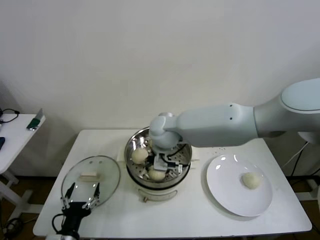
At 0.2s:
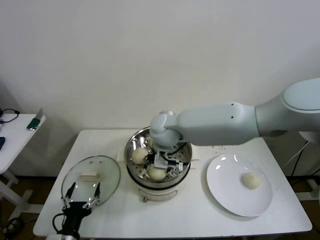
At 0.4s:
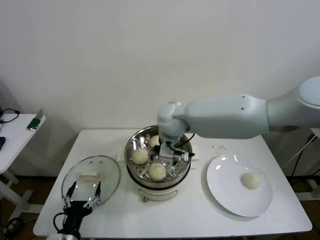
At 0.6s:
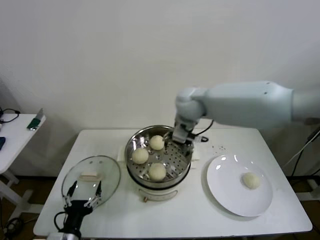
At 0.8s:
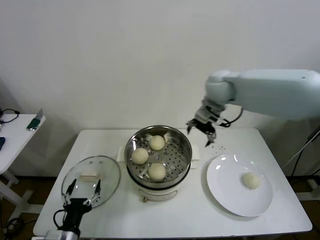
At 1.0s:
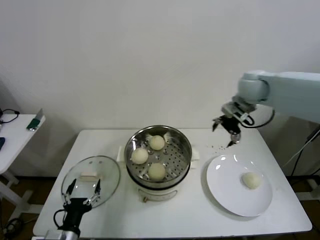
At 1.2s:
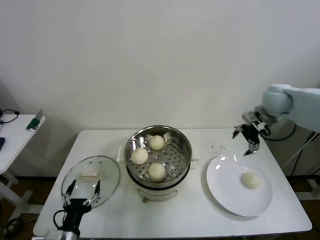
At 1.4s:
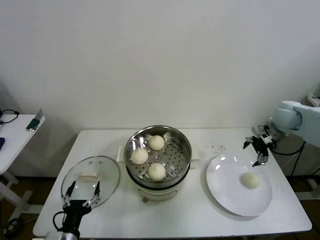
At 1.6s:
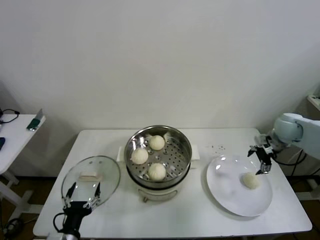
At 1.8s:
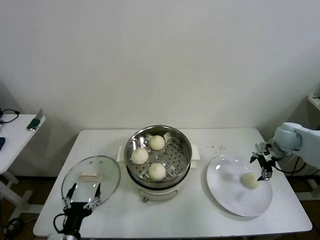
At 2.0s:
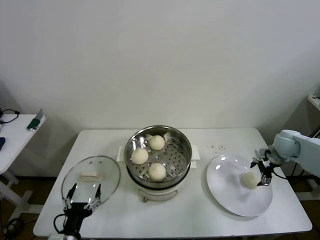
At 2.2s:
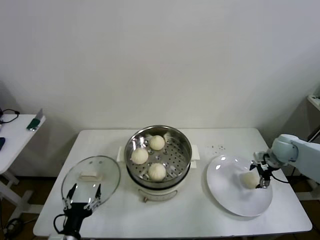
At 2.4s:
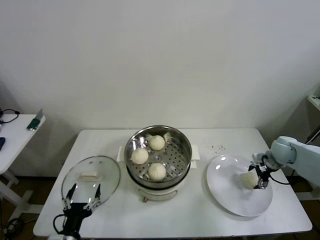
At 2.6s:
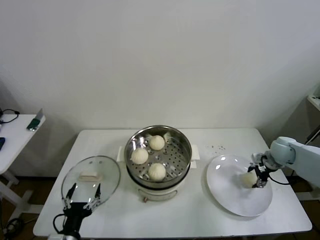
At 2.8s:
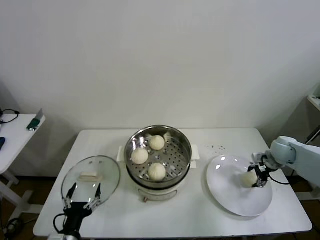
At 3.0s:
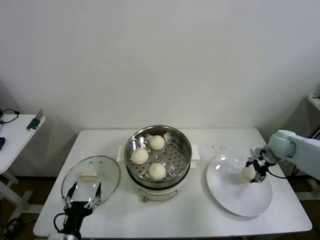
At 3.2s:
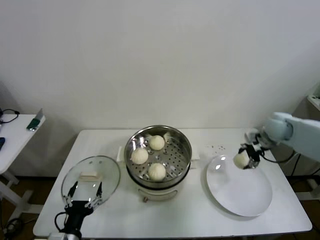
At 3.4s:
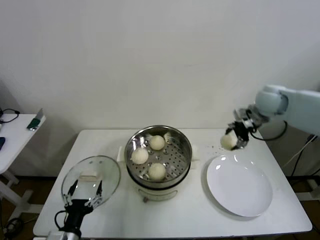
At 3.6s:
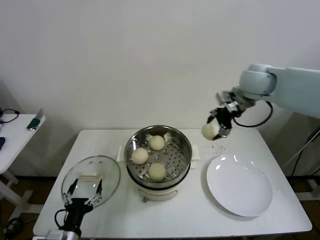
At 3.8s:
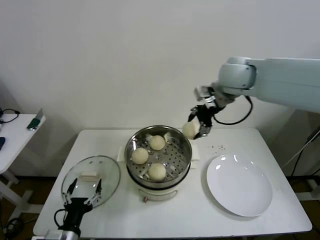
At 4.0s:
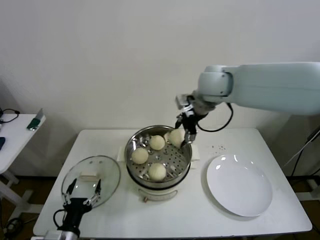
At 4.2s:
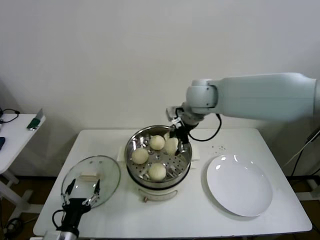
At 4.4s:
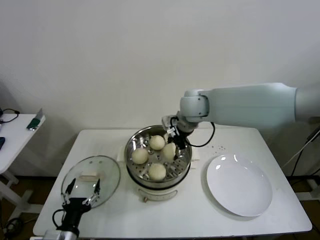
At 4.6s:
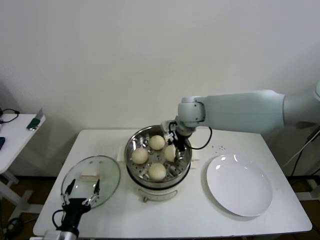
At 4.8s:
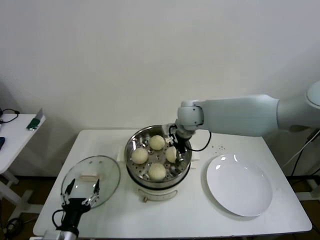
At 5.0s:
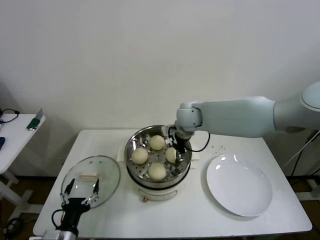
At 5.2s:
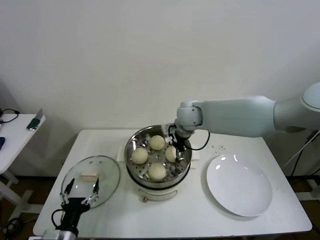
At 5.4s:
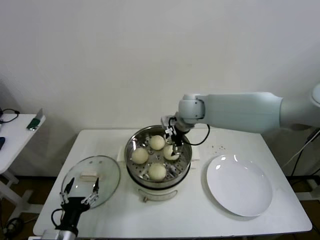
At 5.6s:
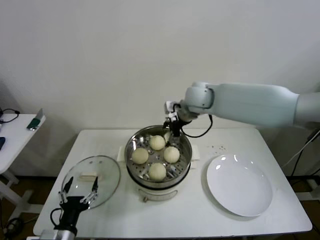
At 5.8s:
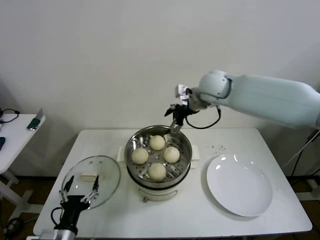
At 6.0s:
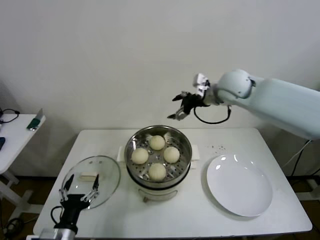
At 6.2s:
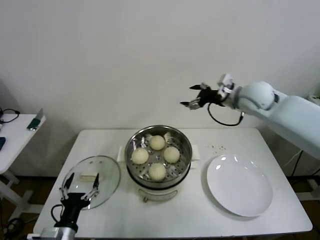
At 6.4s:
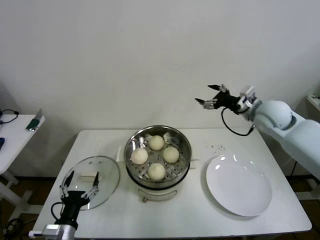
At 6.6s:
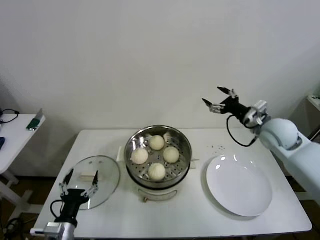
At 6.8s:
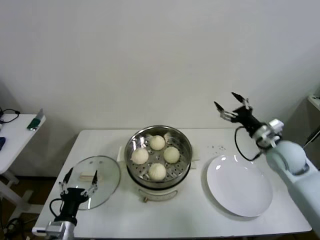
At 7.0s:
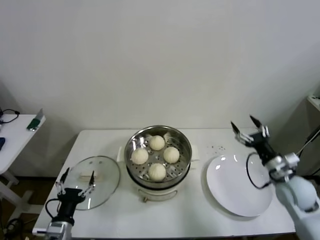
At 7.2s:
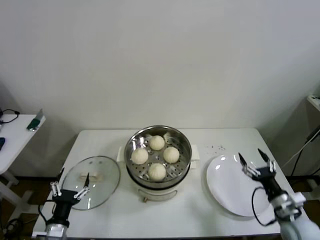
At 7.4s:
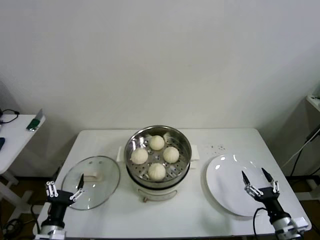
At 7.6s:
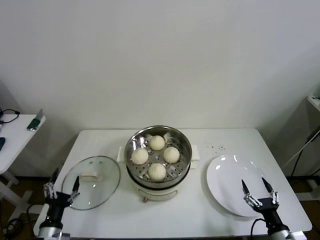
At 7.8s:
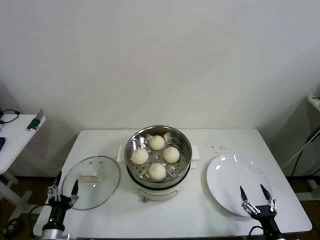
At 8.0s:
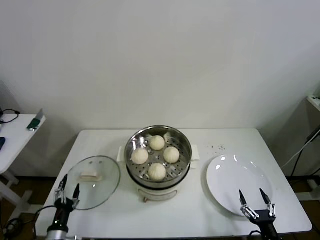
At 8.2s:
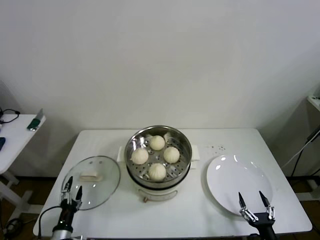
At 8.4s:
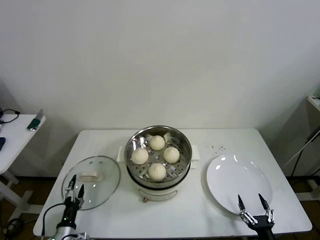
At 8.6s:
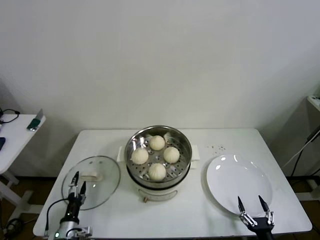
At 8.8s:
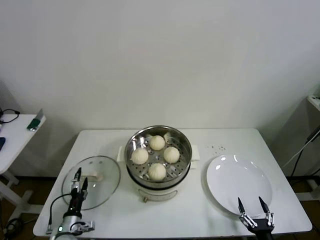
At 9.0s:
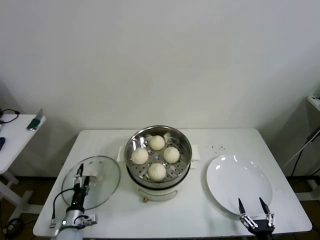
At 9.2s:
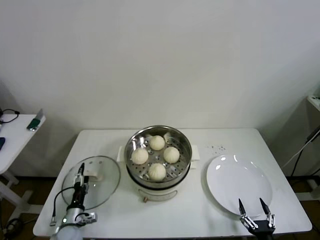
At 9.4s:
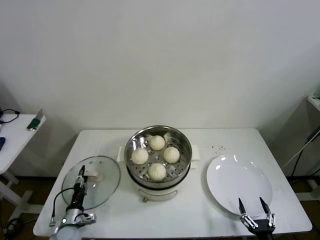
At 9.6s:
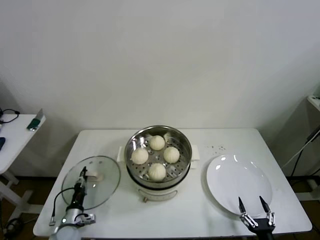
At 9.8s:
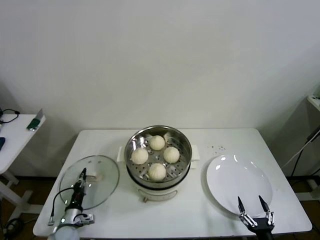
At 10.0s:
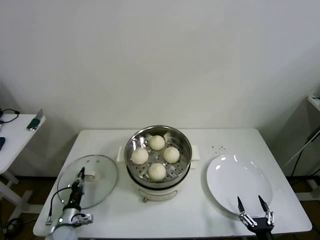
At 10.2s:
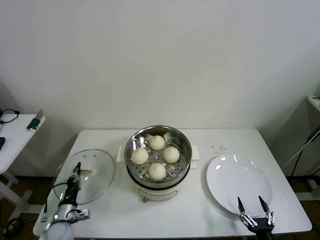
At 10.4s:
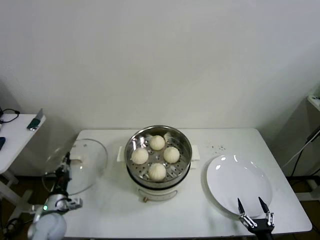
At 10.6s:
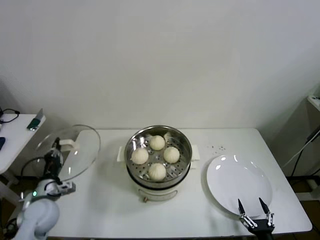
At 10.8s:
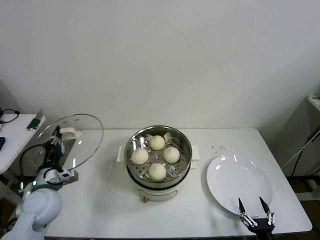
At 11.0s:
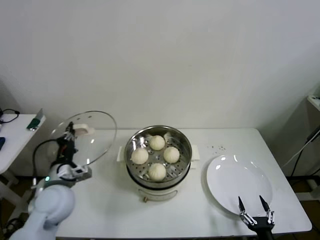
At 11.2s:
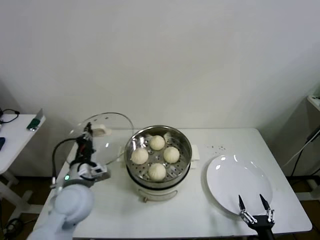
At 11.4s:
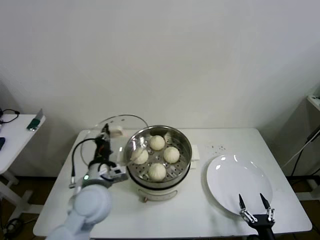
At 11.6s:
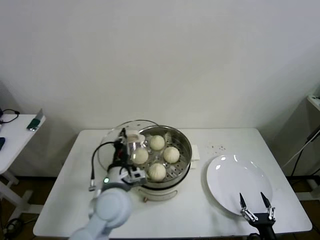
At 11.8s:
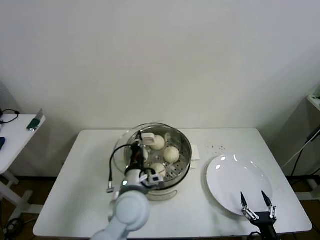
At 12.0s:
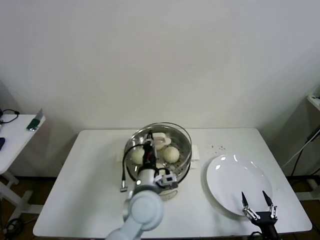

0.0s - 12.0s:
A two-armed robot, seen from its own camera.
Step, 0.4s - 2.6s: Grasp the baozi in the plate with right gripper.
Step, 2.8s - 5.4s: Place the baozi on the steamer with right gripper.
Step, 5.6s - 9.6s: Grasp the pot lid with left gripper.
0.0s - 1.6s: The right gripper goes roughly 40 cm to the right.
1.6s - 3.0s: The right gripper heads downward, covering approximately 5 cm, and closes its fingers.
3.0s - 4.4s: The right gripper moves to the left and upward, some 35 cm.
4.4s - 6.0s: The right gripper moves to the right, about 10 cm, and opens up.
6.0s - 7.6s: The right gripper heads backward, downward and to the right, covering about 60 cm, while the left gripper moves to the left and downward, approximately 10 cm.
7.6s - 9.0s: The right gripper travels backward by some 5 cm. Meanwhile the left gripper moves downward and forward, some 10 cm.
9.0s - 10.4s: The left gripper shifts some 5 cm upward, and closes.
10.4s - 12.0s: The left gripper moves to the right and upward, roughly 35 cm.

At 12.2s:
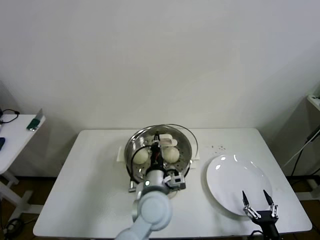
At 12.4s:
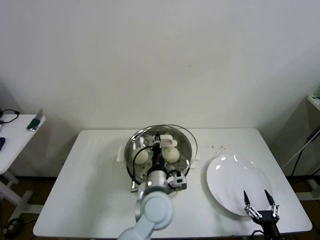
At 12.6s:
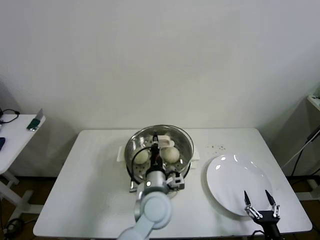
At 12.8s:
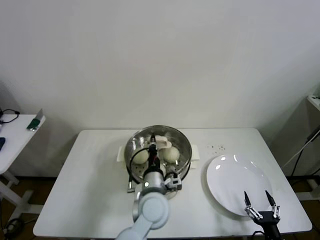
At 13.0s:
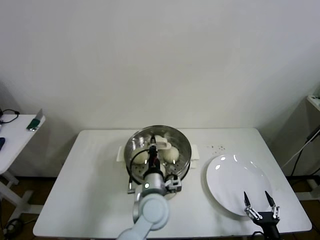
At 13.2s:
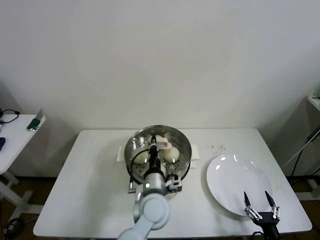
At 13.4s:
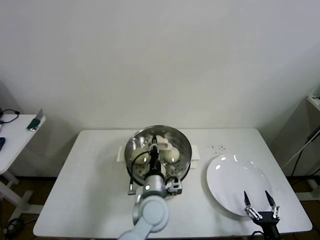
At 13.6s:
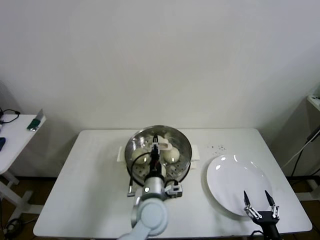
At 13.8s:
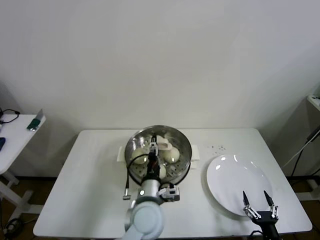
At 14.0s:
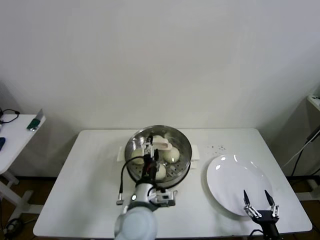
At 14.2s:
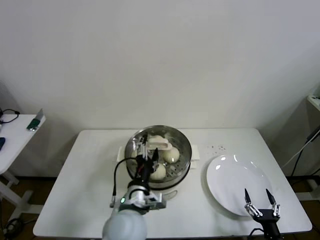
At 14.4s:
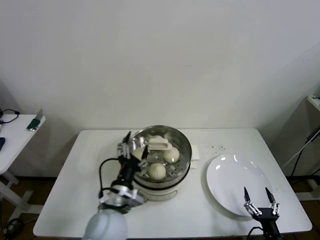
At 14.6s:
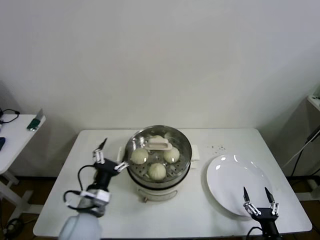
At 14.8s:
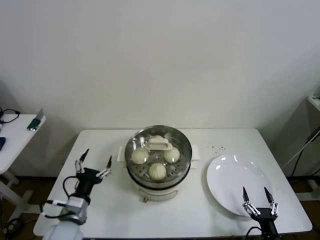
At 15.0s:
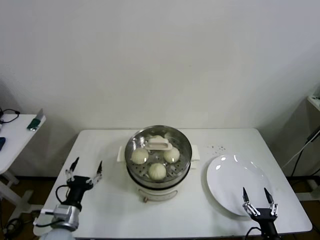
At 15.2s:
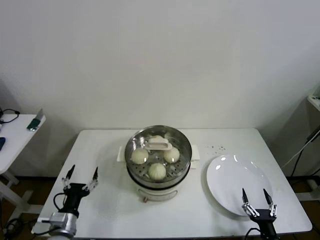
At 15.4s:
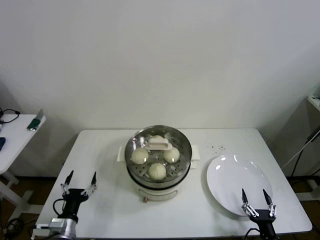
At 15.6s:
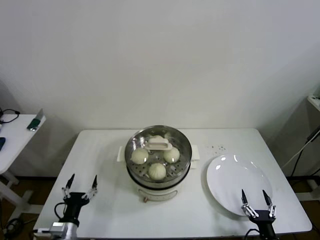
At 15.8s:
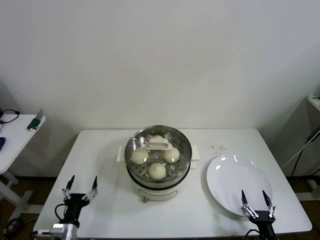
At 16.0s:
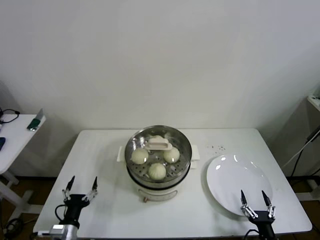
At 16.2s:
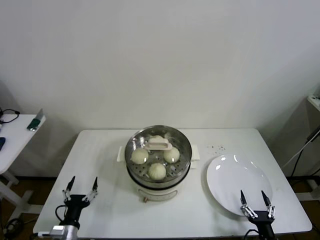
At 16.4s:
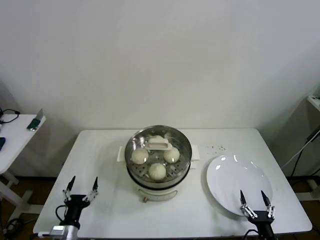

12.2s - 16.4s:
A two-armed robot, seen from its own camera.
12.2s - 13.6s: The left gripper opens.
13.6s - 15.0s: The left gripper goes about 25 cm to the left, and opens up.
15.0s - 16.4s: The left gripper heads downward, covering about 10 cm.

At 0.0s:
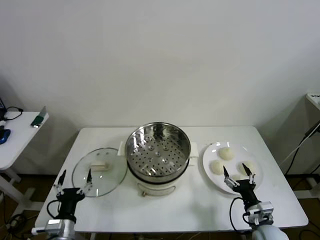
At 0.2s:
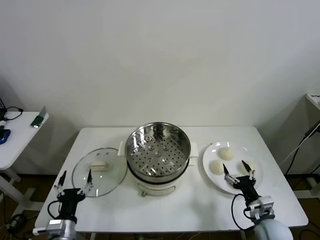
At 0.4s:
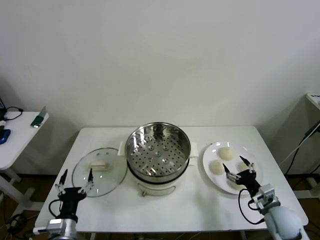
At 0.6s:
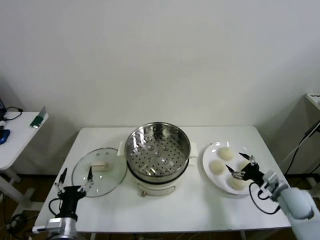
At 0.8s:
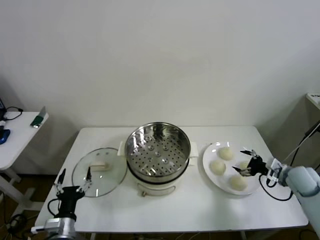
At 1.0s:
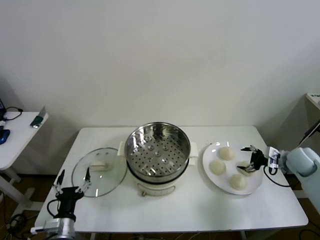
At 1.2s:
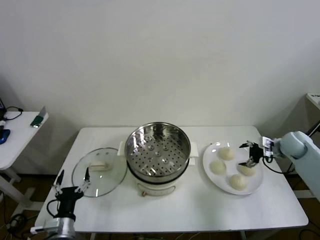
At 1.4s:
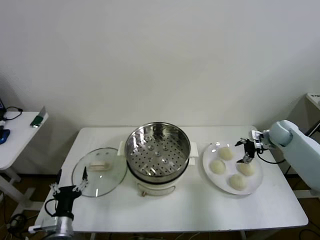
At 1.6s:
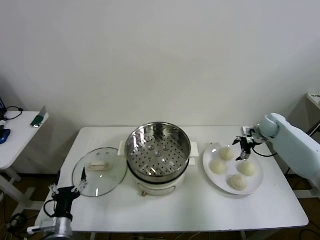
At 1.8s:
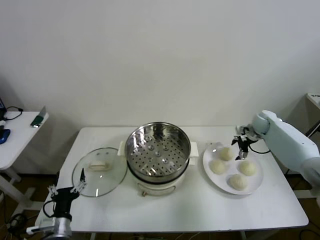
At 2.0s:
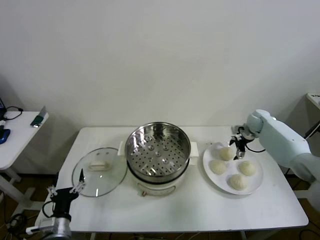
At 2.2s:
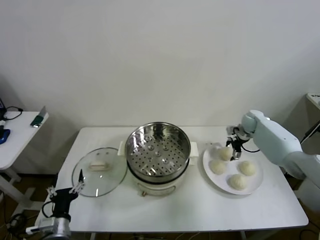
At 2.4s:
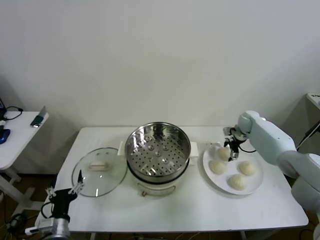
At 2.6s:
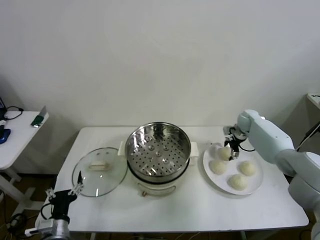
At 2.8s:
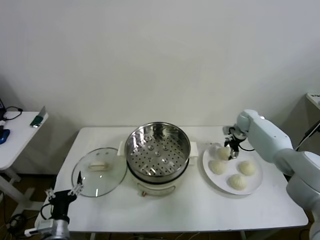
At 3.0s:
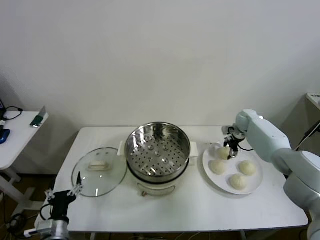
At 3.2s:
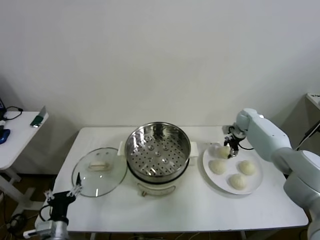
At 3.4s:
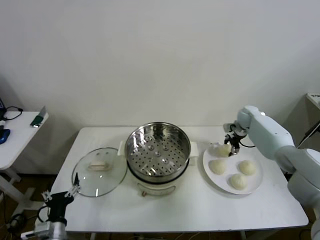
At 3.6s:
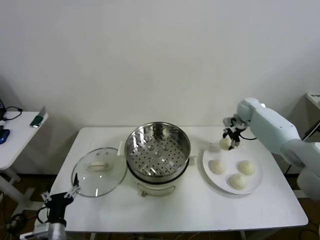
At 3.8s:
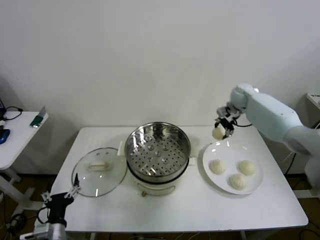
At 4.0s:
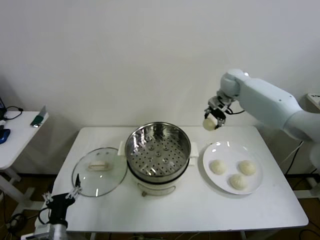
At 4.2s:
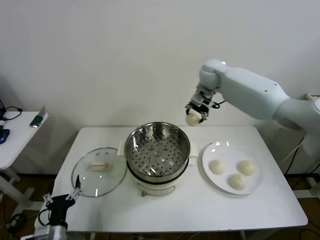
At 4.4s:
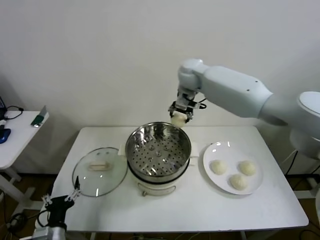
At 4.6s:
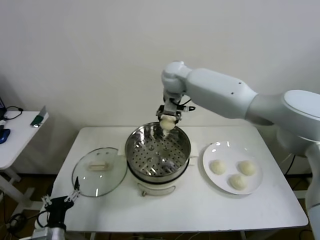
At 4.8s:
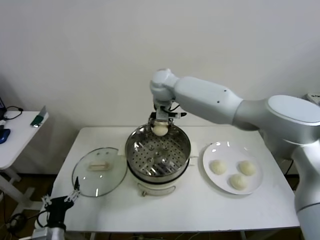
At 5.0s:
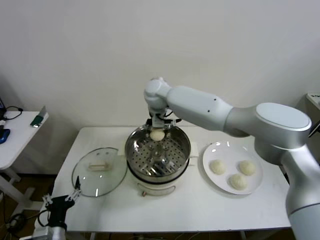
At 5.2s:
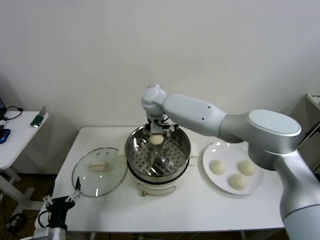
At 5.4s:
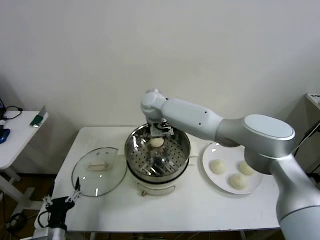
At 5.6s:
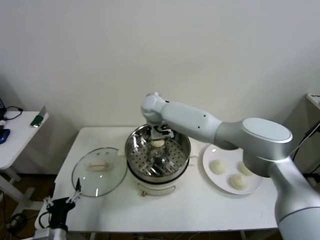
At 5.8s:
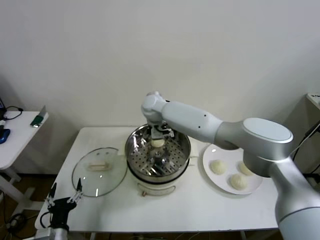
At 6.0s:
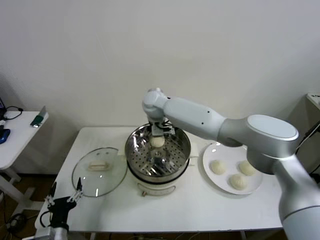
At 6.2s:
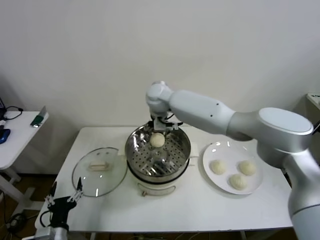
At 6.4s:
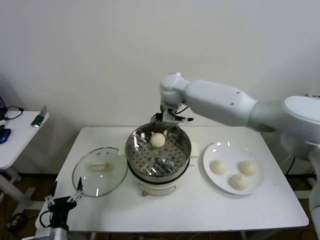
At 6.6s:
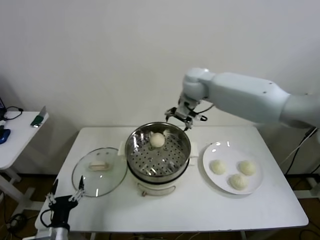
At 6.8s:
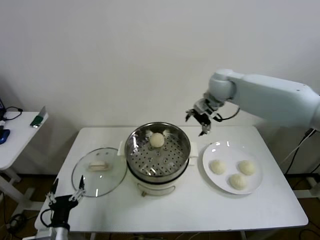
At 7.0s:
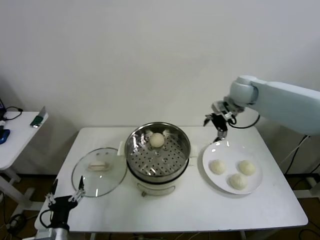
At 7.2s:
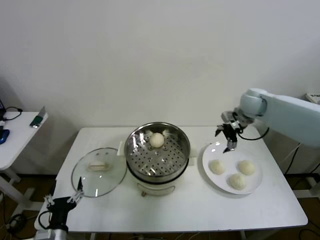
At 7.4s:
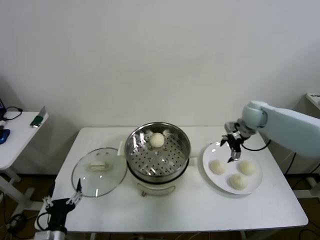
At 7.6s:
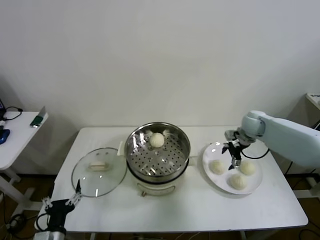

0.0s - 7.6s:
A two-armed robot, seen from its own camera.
Step, 0.0s - 3.0s: Grasp the baozi in the plate with right gripper.
Step, 3.2s - 6.2s: Place the baozi on the steamer with right gripper.
1.6s - 3.0s: The right gripper heads to the left, covering roughly 5 cm, and closes up.
3.0s - 4.6s: The right gripper shifts roughly 40 cm to the left and upward.
4.6s - 6.0s: The right gripper travels downward by some 10 cm, and opens its fingers.
6.0s - 7.6s: The right gripper travels to the right by some 35 cm.
